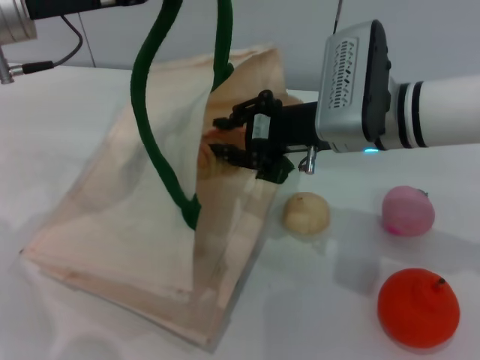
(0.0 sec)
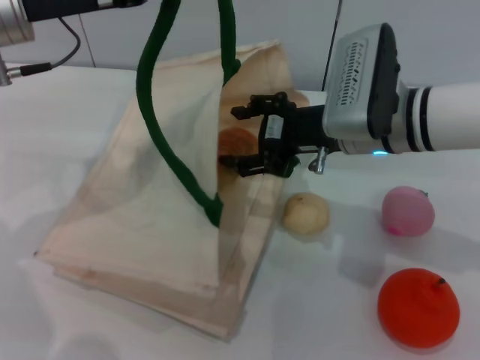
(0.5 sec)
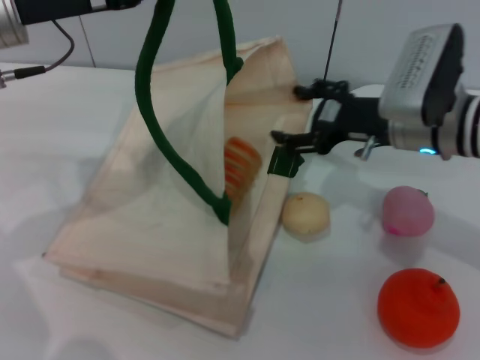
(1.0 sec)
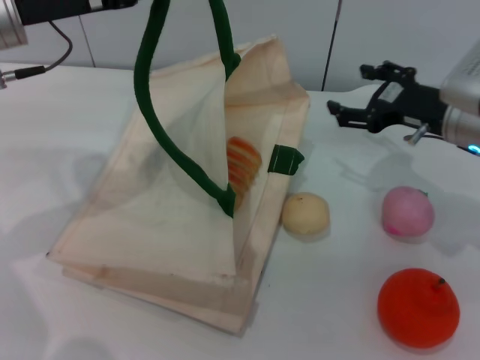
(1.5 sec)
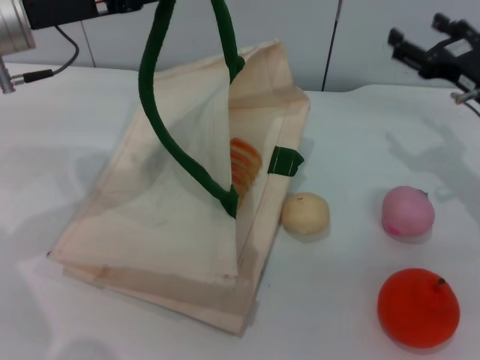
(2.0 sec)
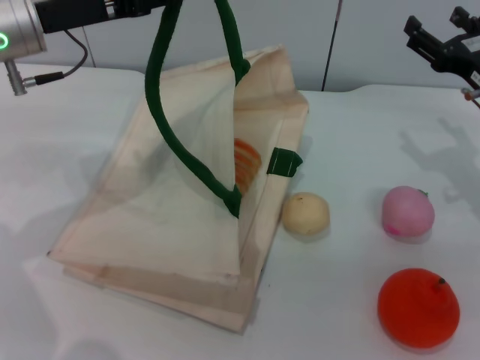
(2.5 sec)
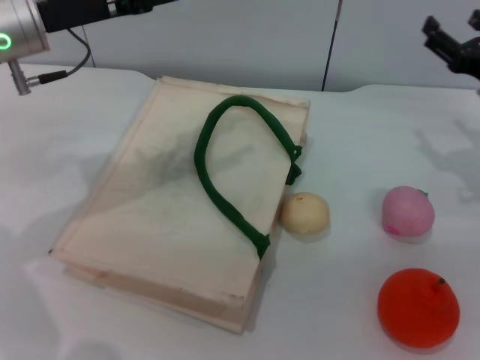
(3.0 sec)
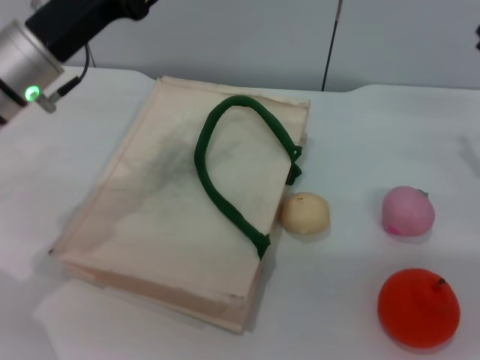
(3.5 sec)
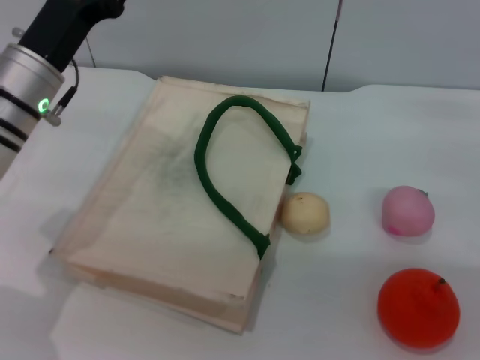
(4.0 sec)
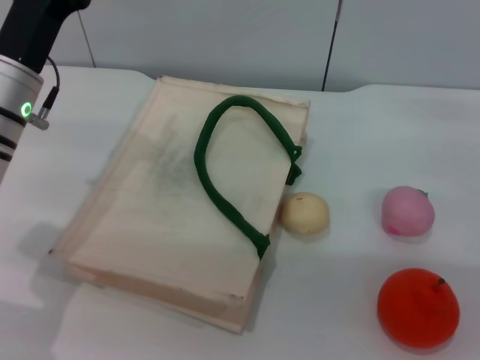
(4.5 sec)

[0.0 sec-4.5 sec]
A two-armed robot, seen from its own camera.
Task of the whole recording: pick up the bread from the table and place it in the white handbag.
Step, 1.0 sec to 3.0 sec: Lower the woven bag with the left gripper to close it.
0.0 sec to 2.0 sec: The right gripper heads to the right, covering approximately 15 cm, and opens its fingers.
2.0 sec to 4.5 sec: The left gripper heads downward, covering about 10 cm, and opens its fingers; the right gripper travels to the right by roughly 5 cm.
